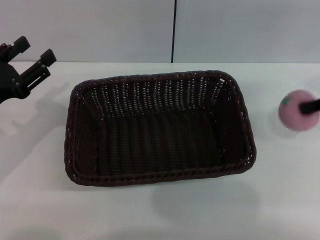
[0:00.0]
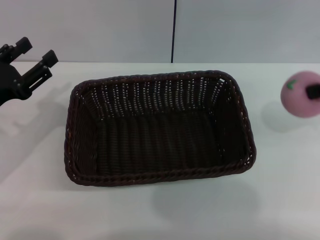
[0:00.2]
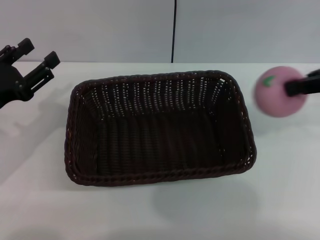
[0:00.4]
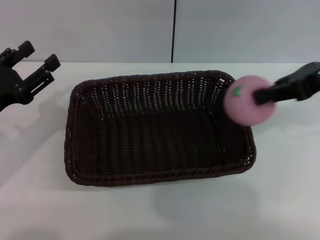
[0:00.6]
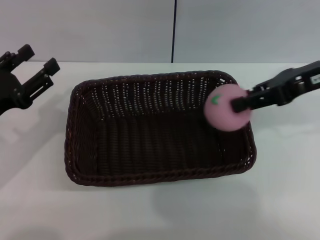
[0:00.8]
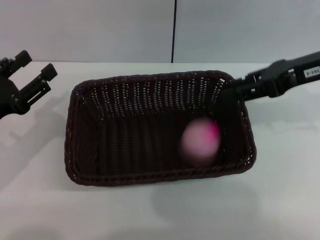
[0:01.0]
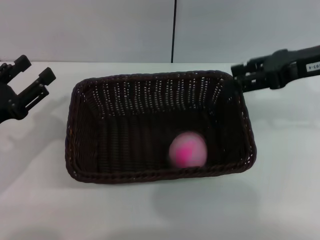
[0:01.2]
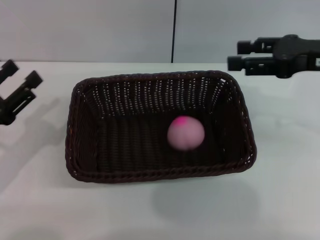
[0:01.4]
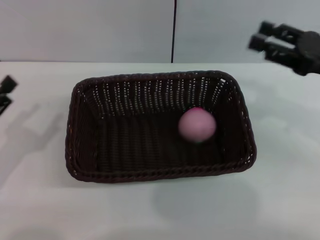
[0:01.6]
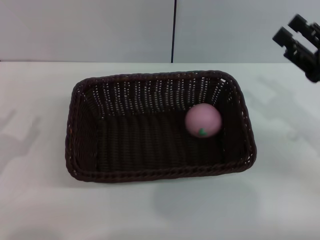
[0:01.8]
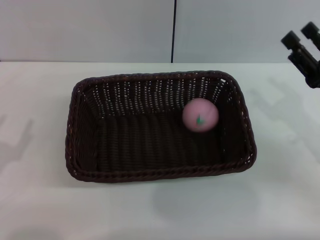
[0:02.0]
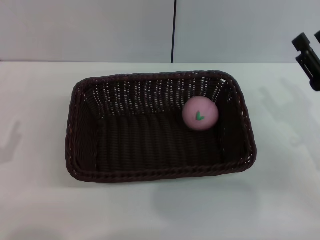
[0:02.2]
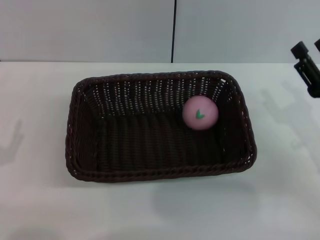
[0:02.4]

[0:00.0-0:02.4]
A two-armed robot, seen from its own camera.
Step, 0:00.8 to 0:01.6: Place the peach into the basket with the left gripper.
0:00.0 to 0:01.2: The right gripper heads to the left, covering some 5 cm, and opens its fingers.
0:01.2 to 0:02.4: The left gripper goes approximately 10 cm backward and downward; the right gripper is displaced downward and backward by some 20 cm.
